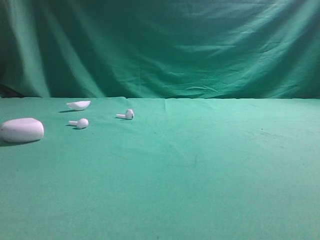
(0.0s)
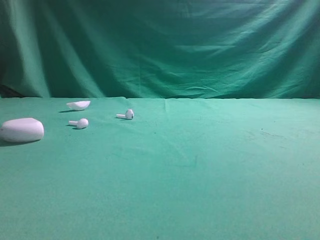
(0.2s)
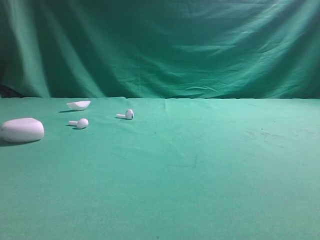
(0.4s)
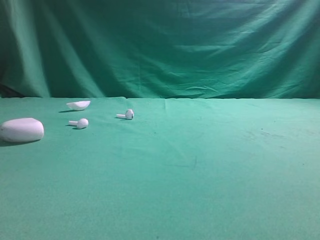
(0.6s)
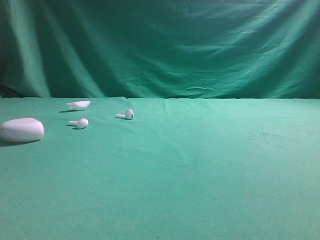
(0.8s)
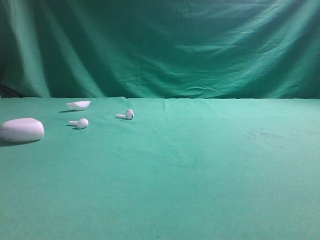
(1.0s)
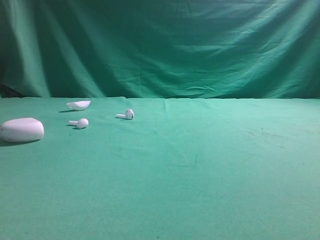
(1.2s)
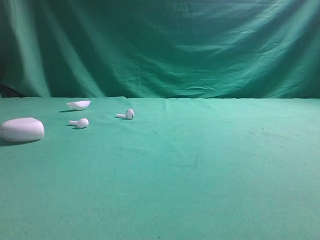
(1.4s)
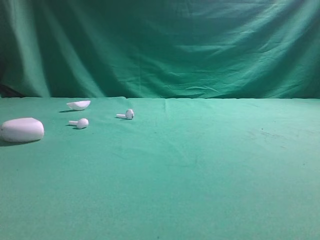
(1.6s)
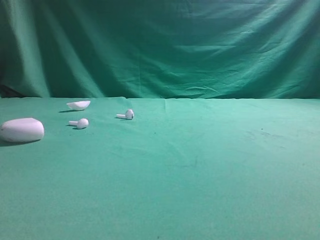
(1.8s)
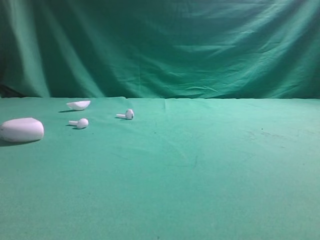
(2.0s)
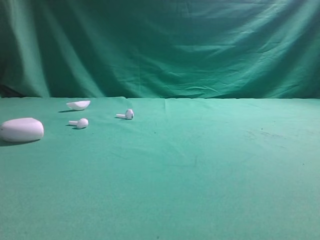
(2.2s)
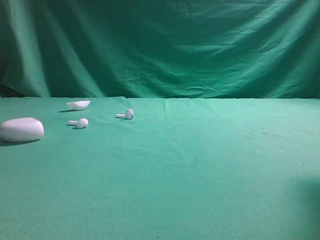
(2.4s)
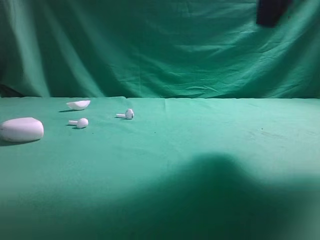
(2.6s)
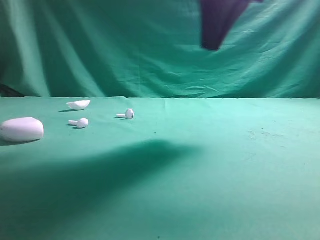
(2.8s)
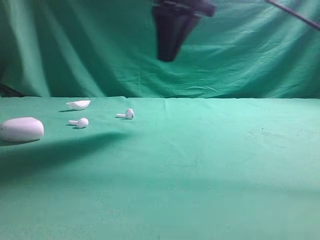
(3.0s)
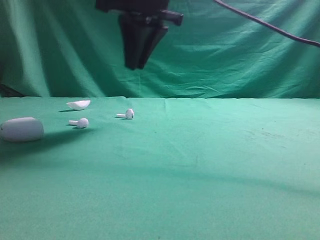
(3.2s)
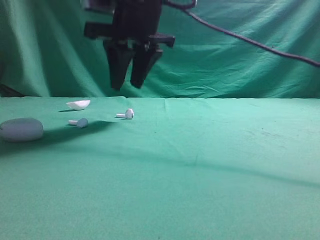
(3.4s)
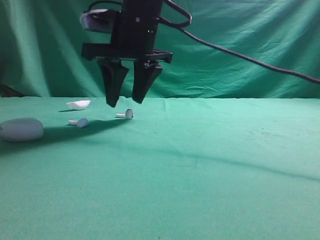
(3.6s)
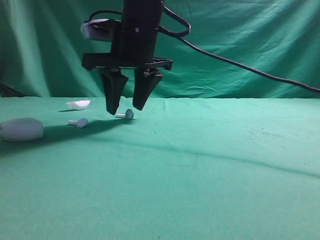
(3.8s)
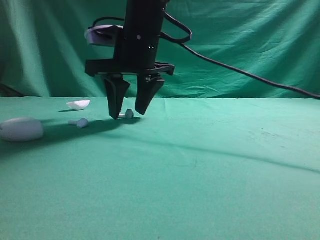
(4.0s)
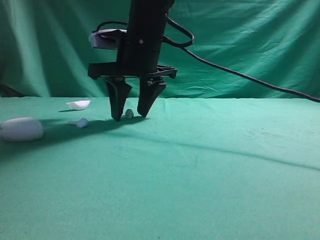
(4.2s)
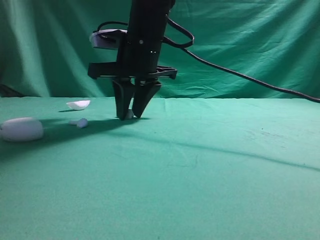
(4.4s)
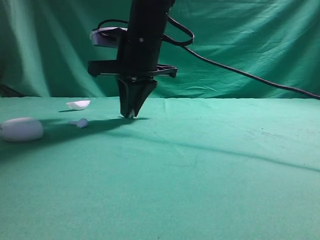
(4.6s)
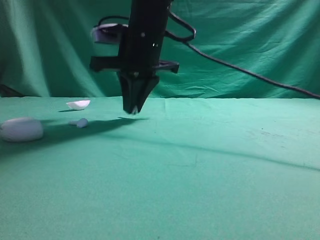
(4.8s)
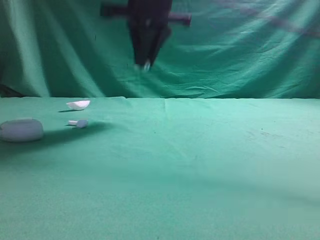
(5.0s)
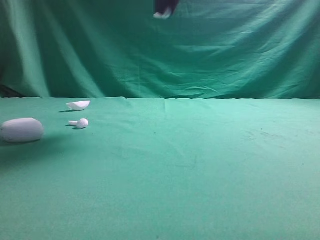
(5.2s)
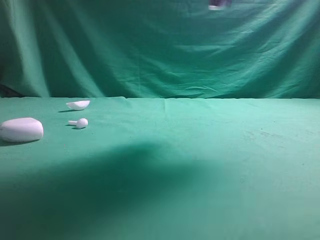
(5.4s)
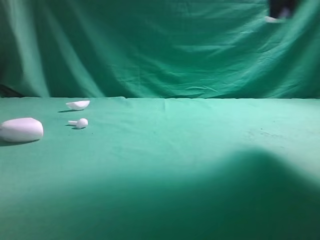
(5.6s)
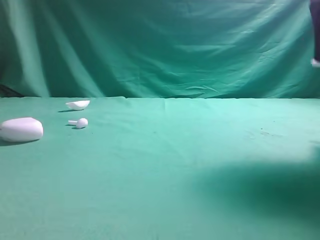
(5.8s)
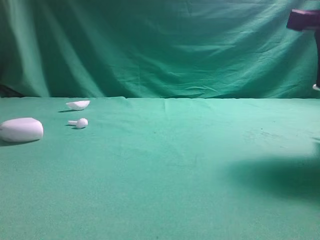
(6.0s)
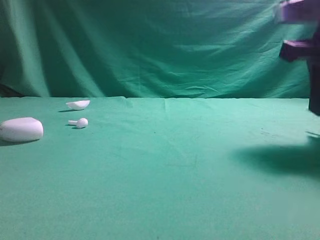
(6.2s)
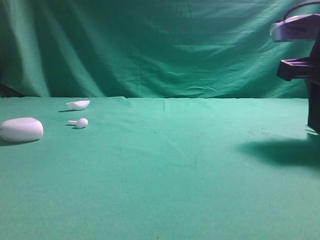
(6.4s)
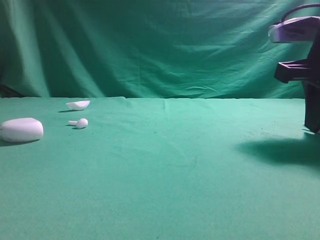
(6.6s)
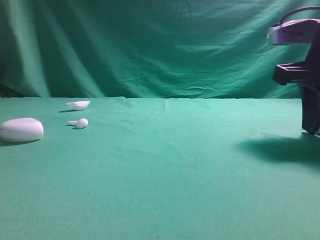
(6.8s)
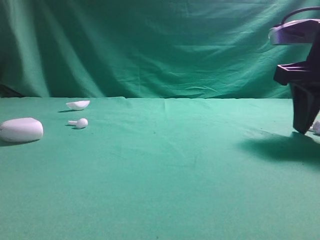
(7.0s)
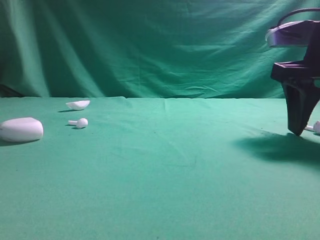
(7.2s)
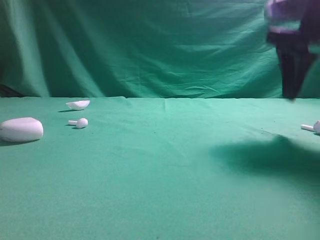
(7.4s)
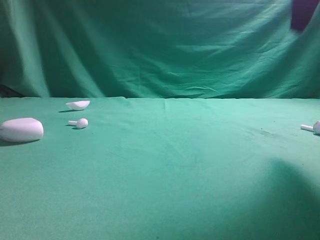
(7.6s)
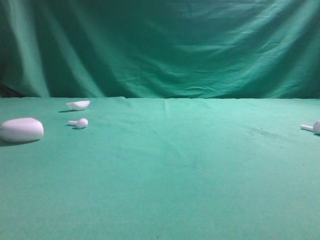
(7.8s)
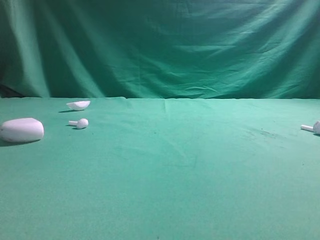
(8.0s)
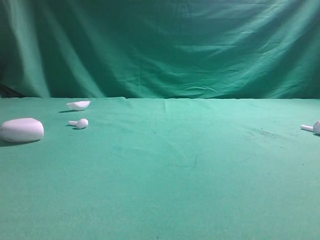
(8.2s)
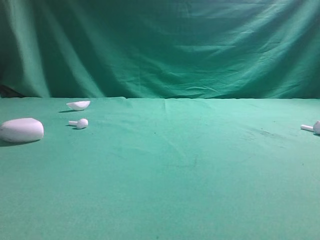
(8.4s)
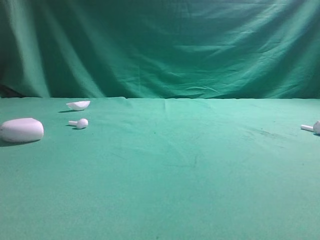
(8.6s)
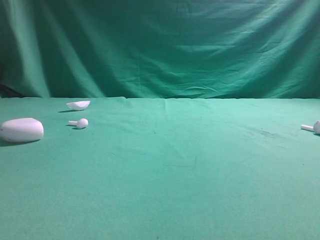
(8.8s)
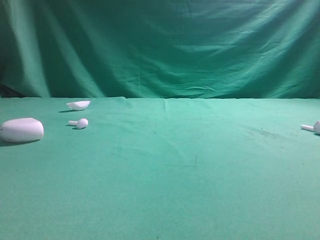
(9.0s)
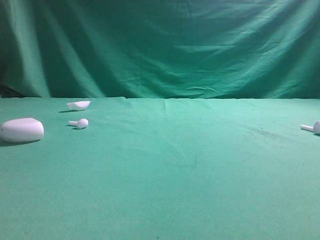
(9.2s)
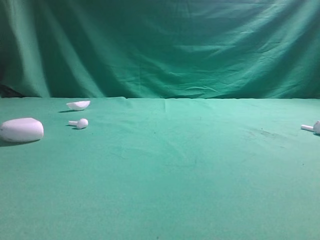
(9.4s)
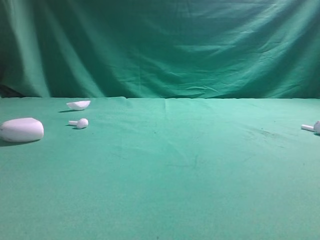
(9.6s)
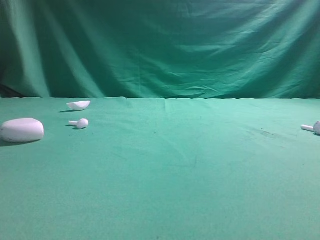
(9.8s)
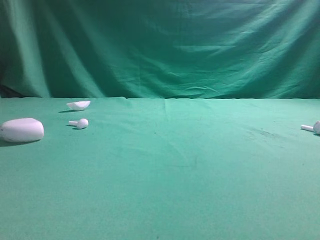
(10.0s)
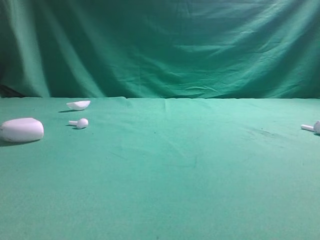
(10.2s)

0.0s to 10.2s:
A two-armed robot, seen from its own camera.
Step, 0.0s to 5.2s: Grasp the Bluetooth earbud.
Step, 5.4s to 7.6s: Place bluetooth earbud on the right side of the table.

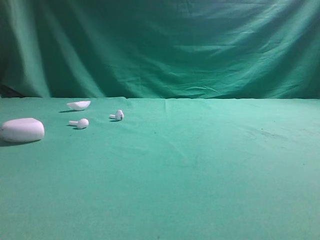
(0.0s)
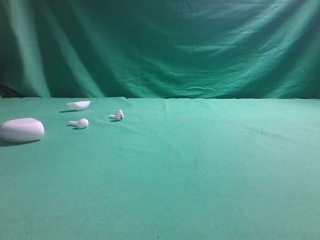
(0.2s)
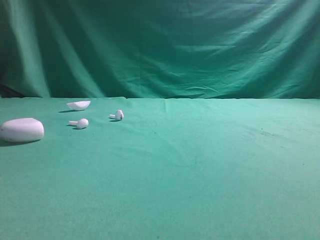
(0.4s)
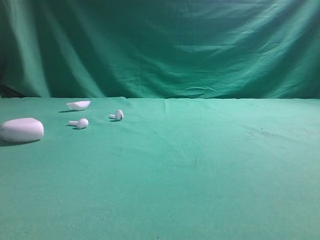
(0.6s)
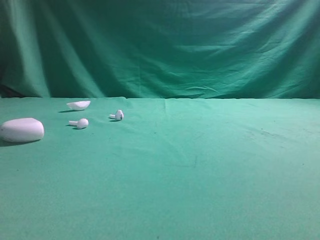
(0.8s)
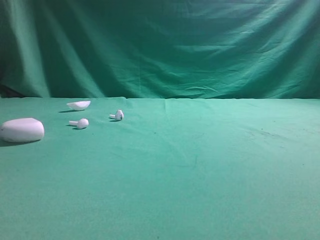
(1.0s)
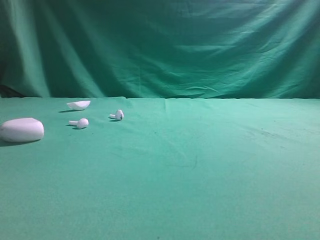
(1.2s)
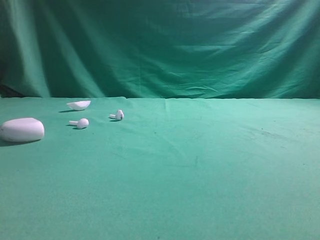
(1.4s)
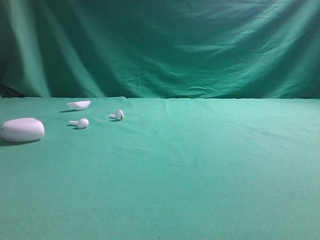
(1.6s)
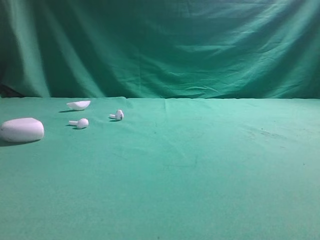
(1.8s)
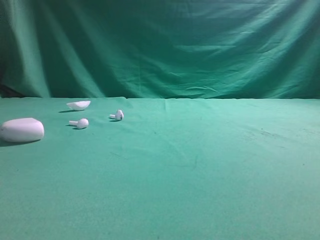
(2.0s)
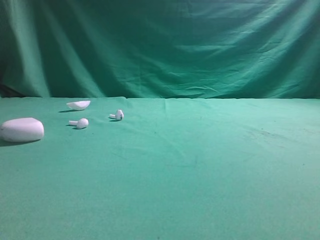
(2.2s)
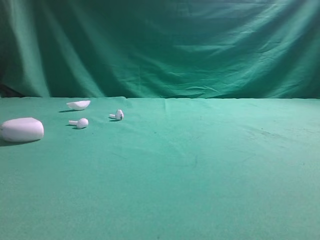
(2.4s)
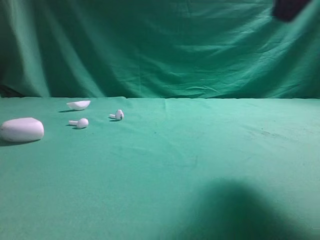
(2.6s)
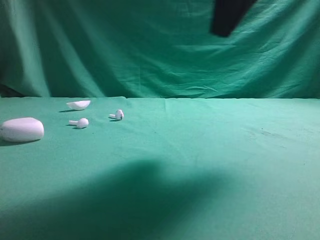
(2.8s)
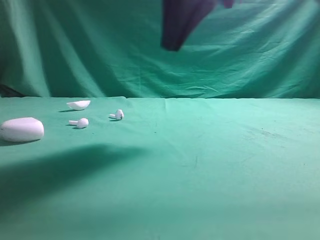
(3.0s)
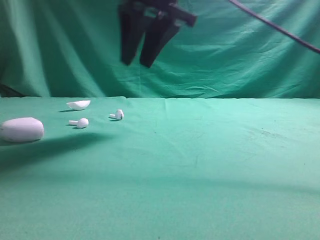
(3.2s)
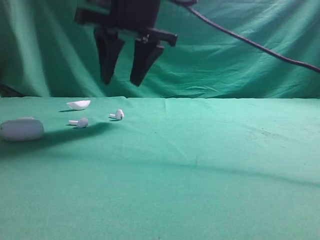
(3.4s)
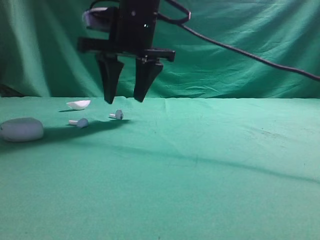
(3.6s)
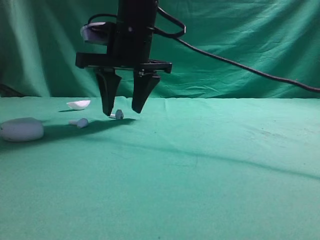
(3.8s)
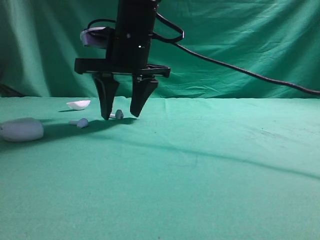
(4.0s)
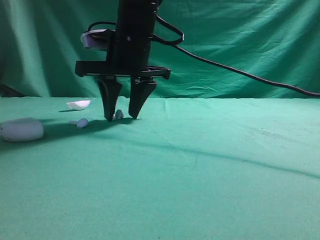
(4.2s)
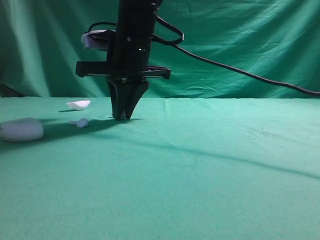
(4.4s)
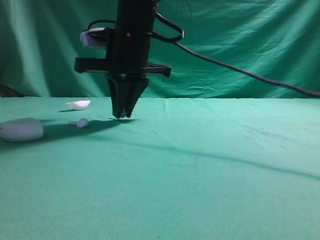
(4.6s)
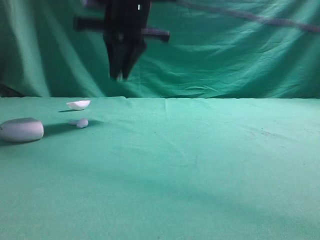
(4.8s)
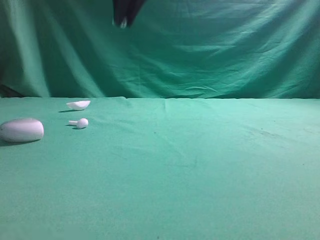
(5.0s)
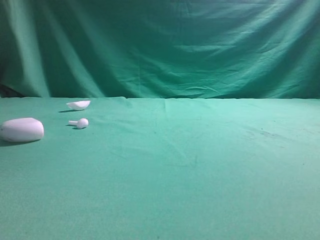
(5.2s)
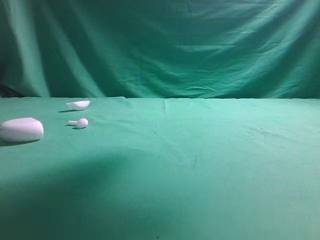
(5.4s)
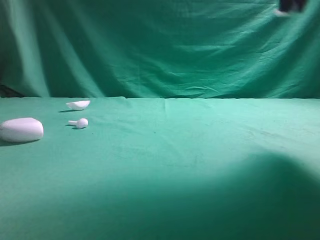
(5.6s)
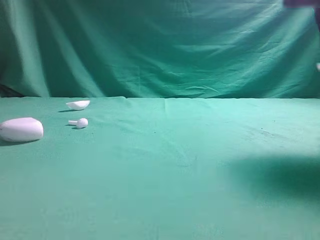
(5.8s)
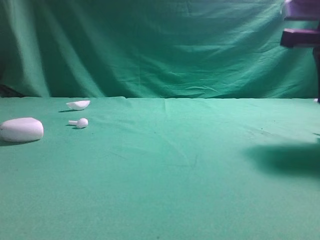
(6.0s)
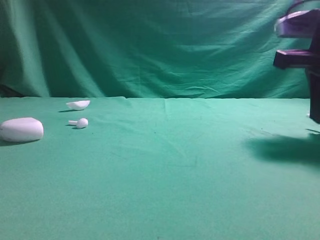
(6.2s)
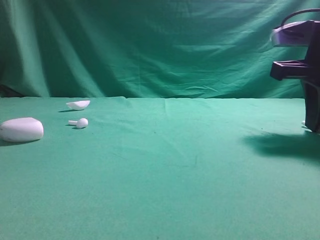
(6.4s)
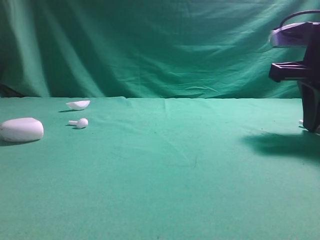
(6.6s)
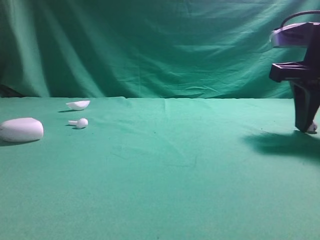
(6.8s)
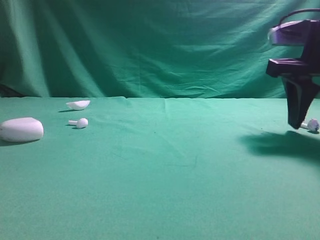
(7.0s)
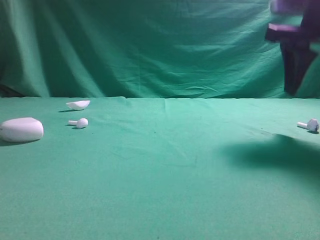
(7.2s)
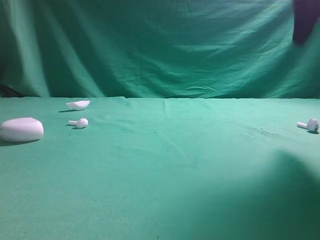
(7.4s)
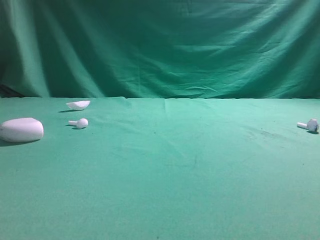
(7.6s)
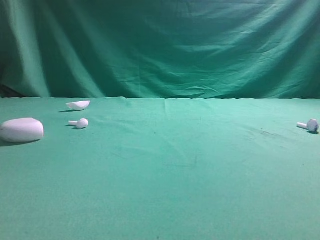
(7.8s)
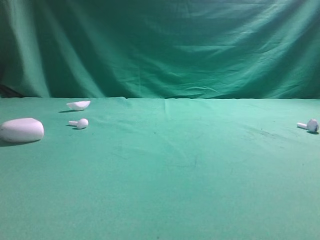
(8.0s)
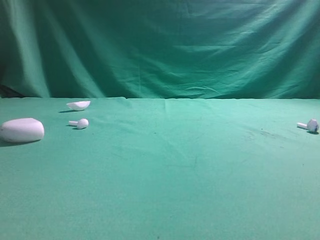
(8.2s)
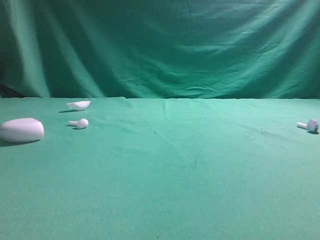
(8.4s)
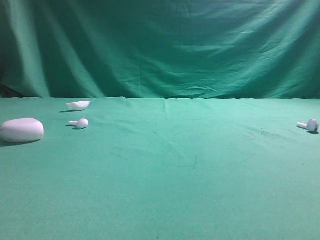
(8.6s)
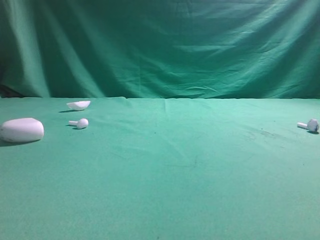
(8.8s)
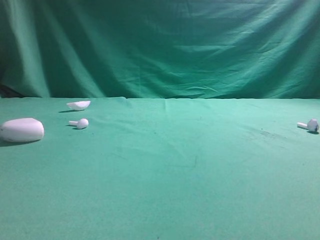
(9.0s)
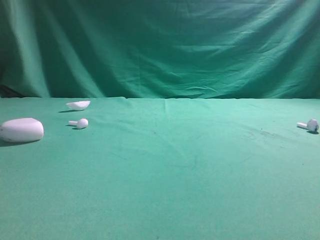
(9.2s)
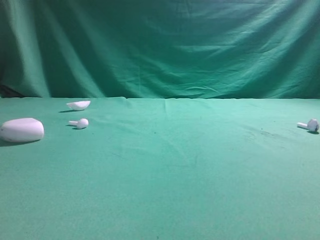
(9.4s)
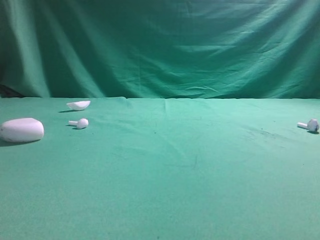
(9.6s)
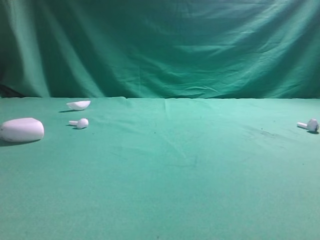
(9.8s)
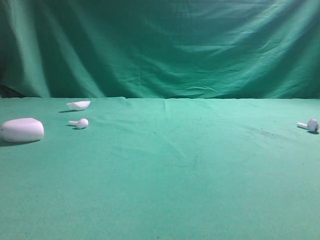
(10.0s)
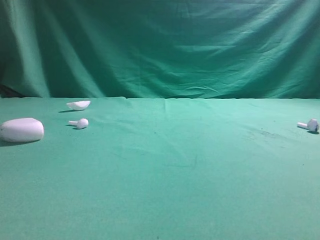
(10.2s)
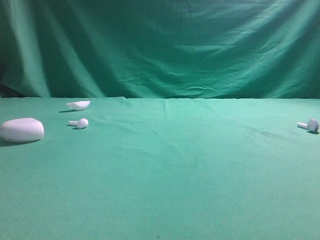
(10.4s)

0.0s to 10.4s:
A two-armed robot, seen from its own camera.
Step, 0.0s to 4.8s: Grasp the Bluetooth earbud.
Step, 5.0s to 7.2s: Place bluetooth earbud on the right side of the table.

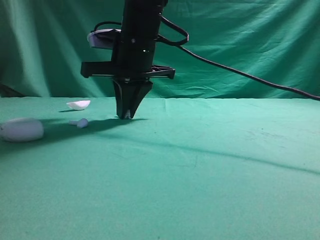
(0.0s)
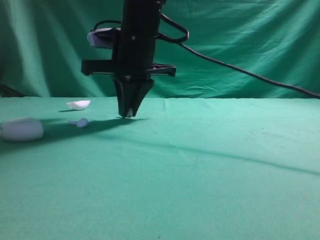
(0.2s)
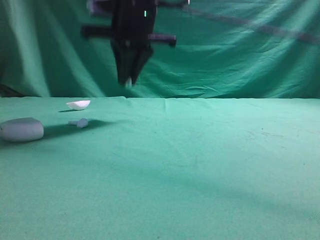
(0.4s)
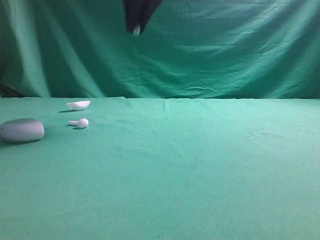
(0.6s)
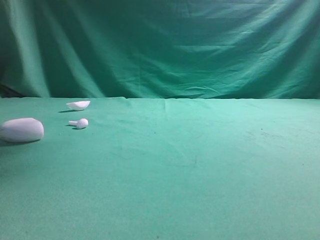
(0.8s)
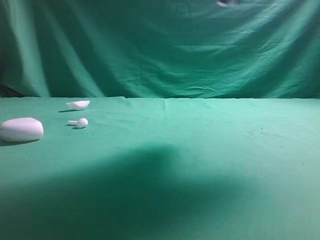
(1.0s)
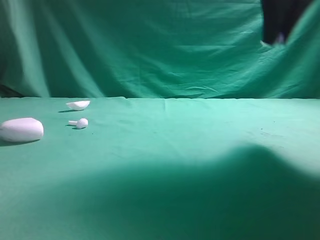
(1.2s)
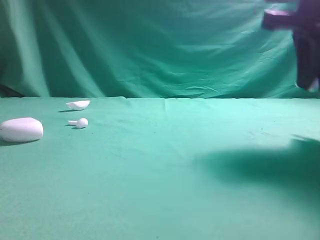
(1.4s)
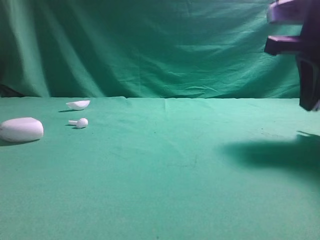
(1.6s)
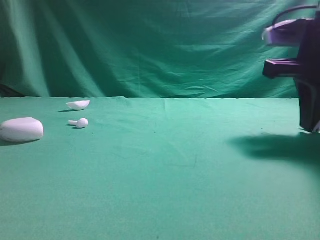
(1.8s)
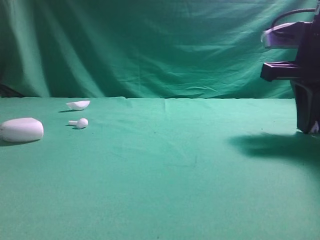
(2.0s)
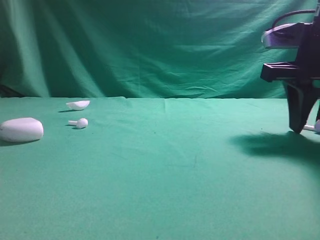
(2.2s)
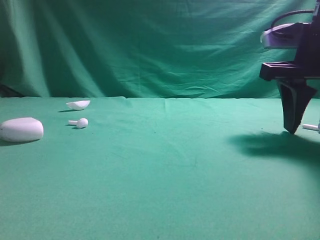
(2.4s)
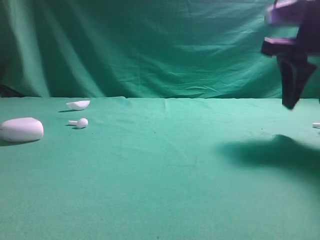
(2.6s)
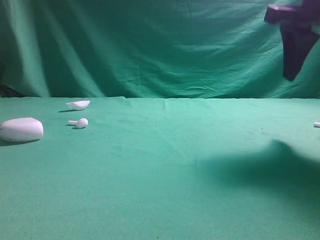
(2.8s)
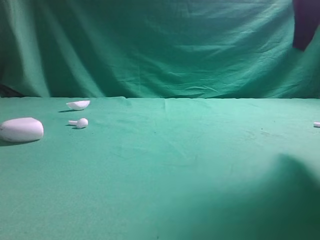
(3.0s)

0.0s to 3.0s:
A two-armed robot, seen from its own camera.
Step, 0.8s to 2.6s: Place bluetooth earbud on the right side of the table.
